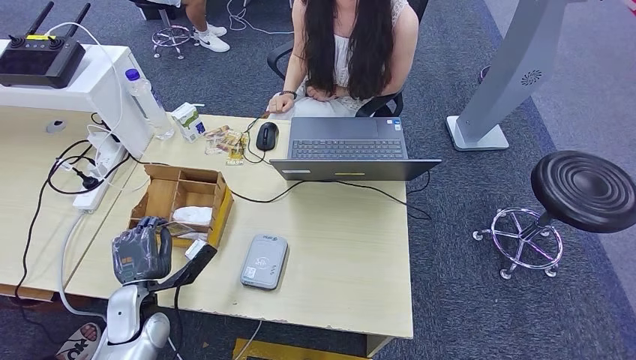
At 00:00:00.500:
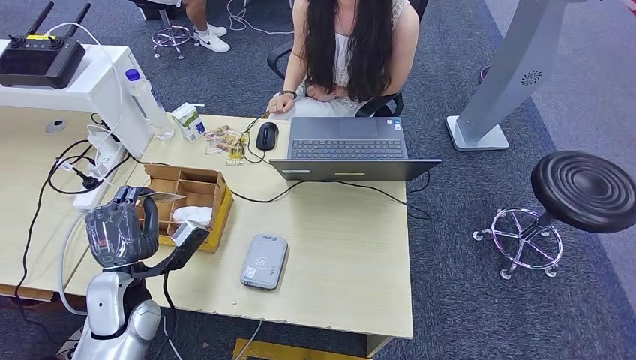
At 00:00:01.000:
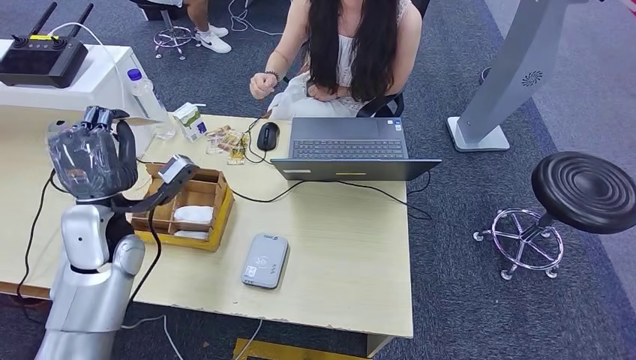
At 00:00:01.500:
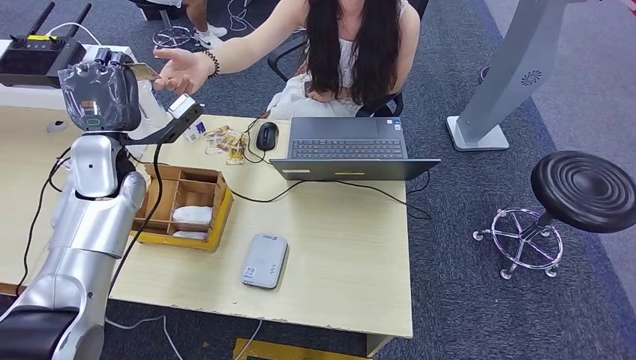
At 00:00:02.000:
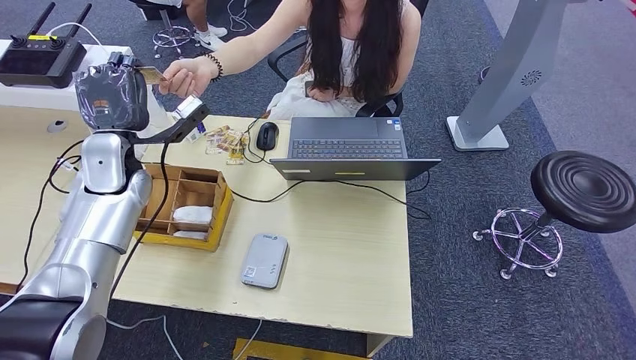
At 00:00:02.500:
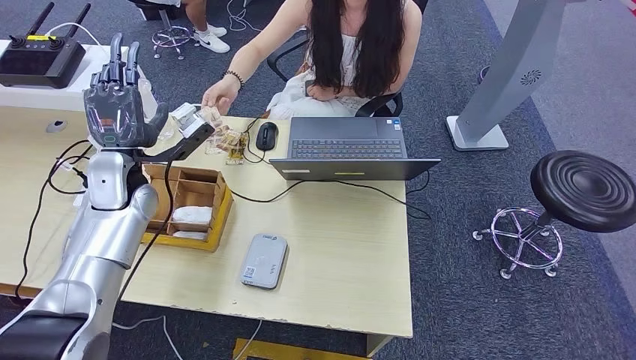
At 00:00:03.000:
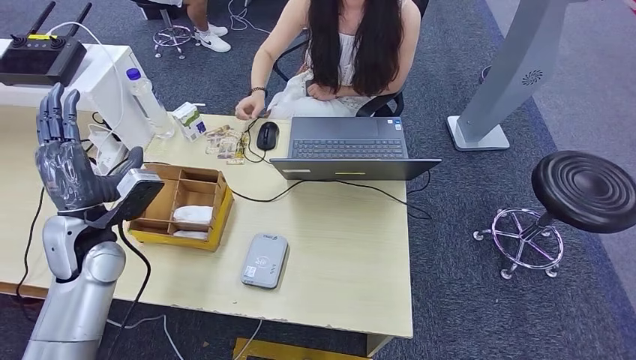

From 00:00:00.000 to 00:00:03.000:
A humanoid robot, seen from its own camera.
Step, from 00:00:00.000 to 00:00:03.000: Hand the room key to the person.
From 00:00:00.000 to 00:00:01.500: The left hand is displaced upward and forward by about 30 cm.
From 00:00:01.500 to 00:00:03.000: The left hand is displaced backward and downward by approximately 10 cm.
